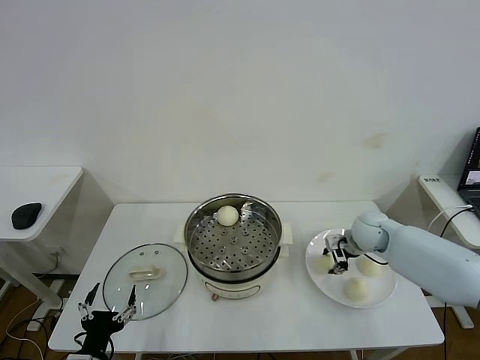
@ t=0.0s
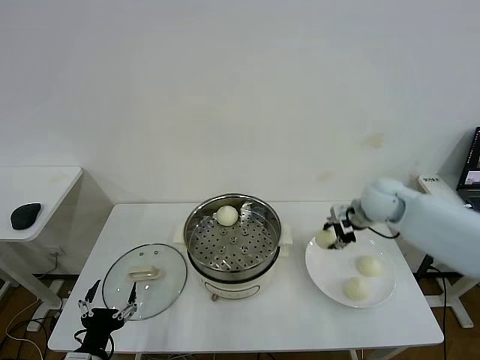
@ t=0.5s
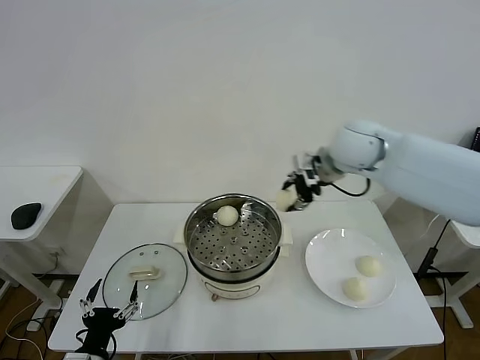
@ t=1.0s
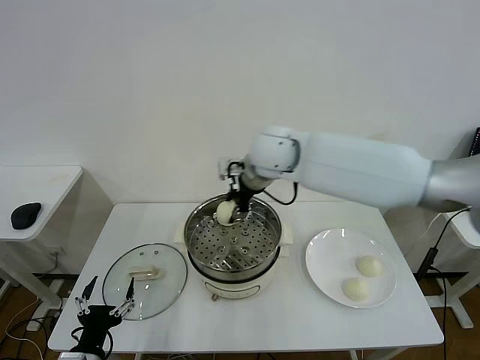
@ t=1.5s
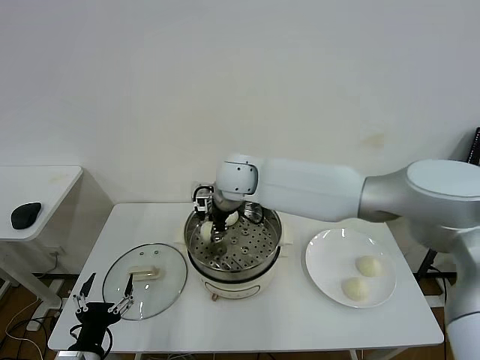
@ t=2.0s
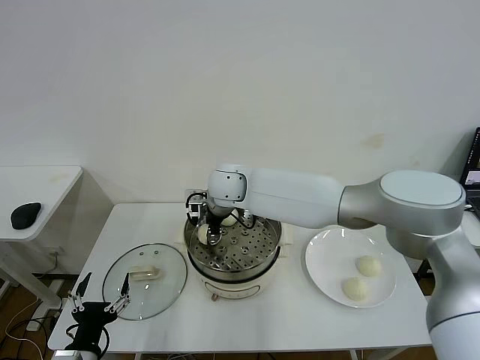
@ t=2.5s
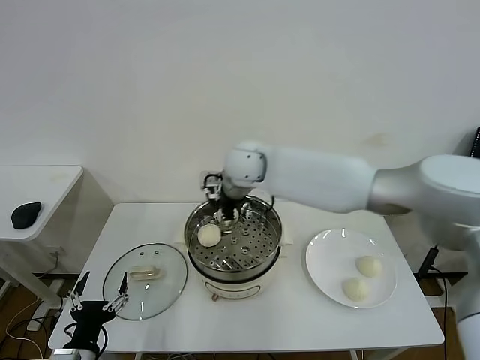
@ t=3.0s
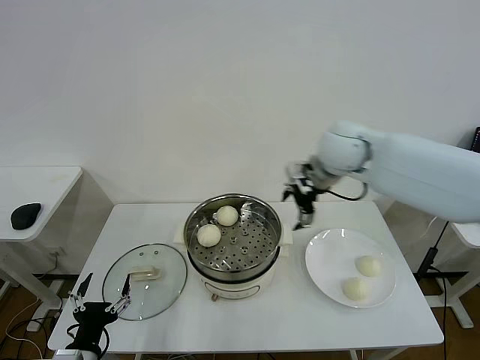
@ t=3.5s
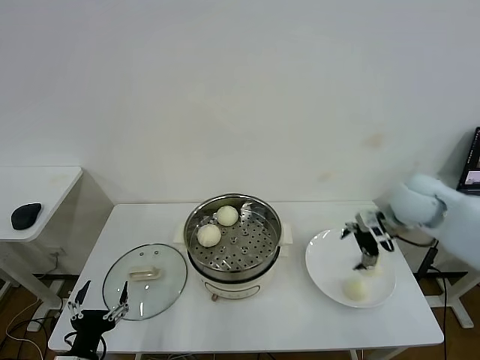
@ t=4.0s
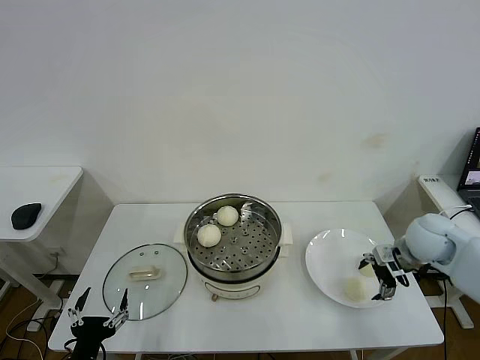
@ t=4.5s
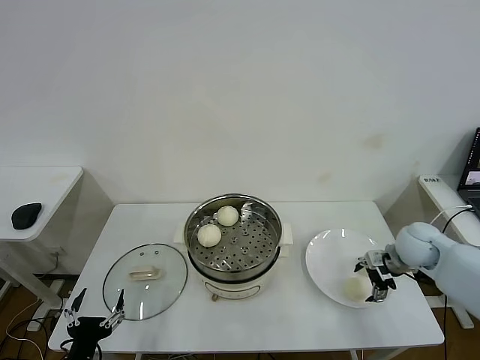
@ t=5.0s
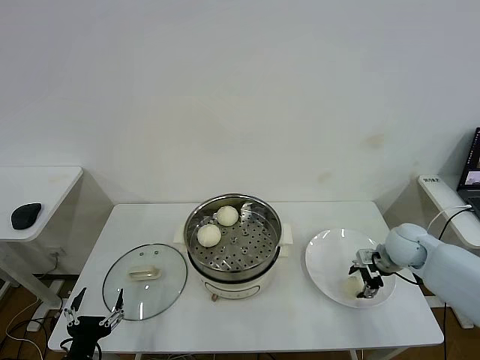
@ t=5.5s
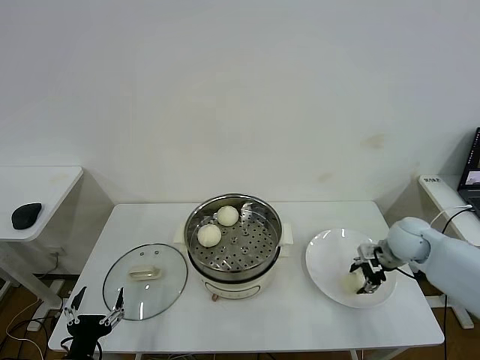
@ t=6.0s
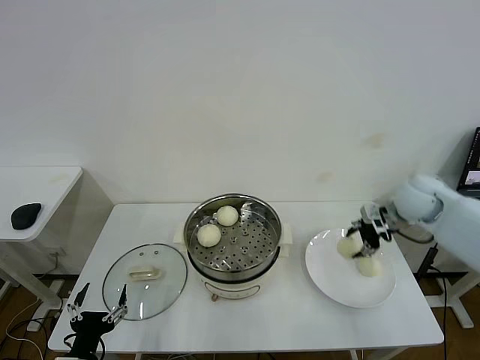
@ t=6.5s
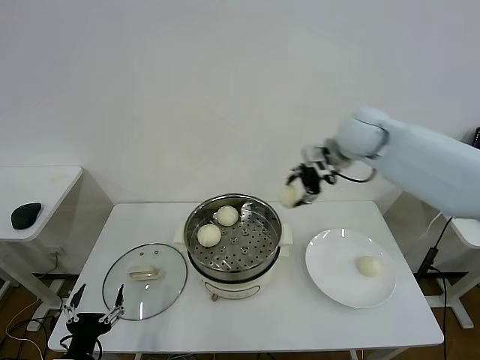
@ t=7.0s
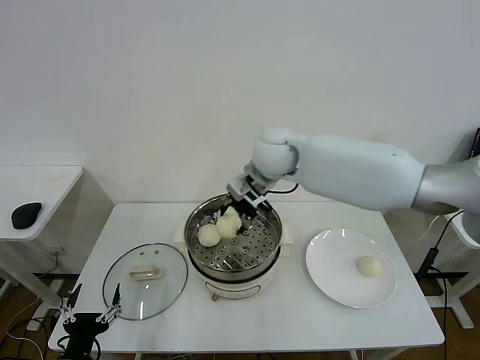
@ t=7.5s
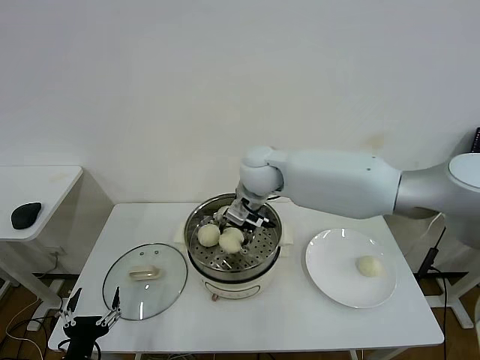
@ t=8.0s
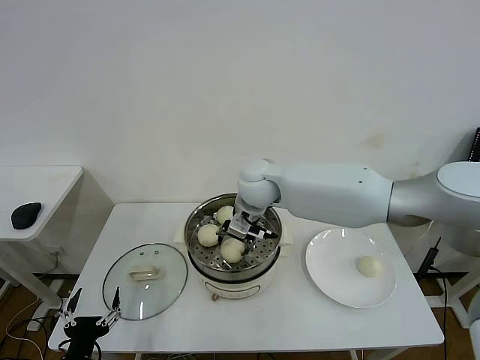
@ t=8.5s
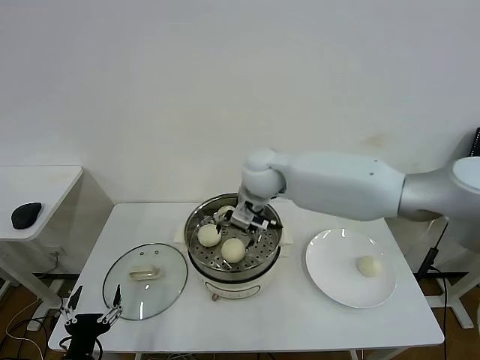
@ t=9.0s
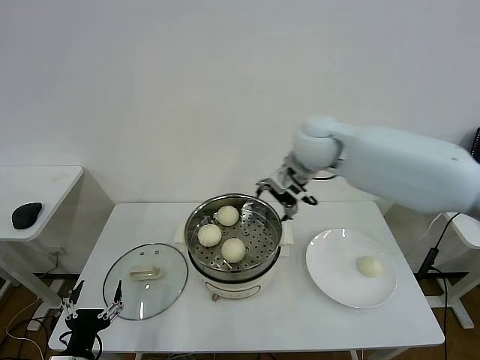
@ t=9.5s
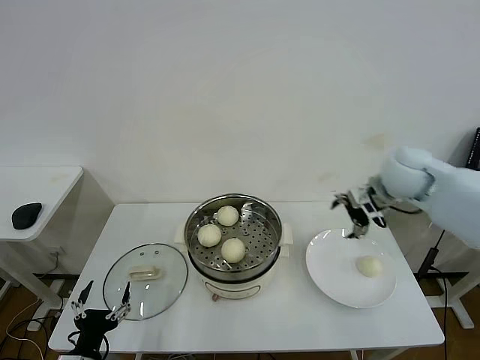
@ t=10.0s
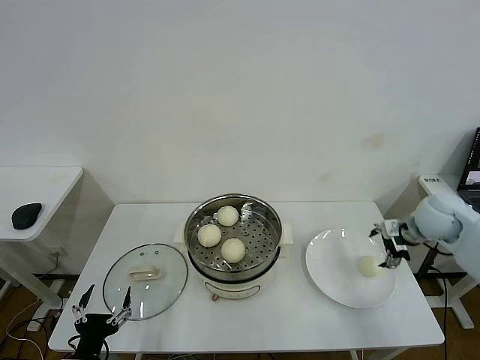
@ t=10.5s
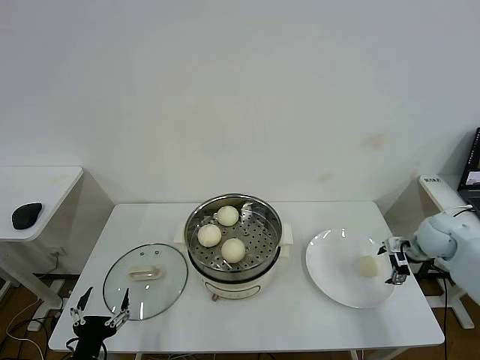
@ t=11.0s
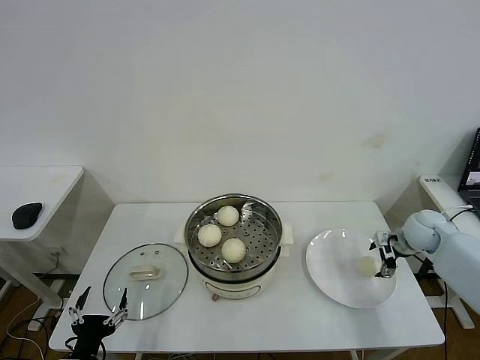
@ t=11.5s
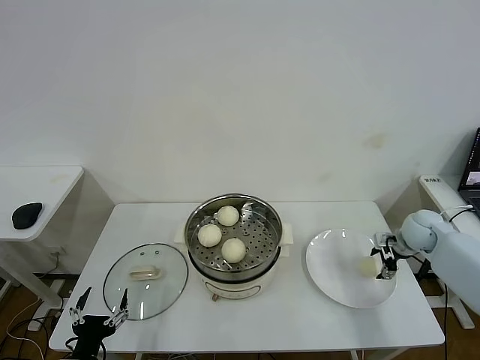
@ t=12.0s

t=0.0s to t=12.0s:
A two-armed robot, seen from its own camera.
Step, t=0.0s to t=2.5s: Place the baozi on the steamer with right gripper.
Step, t=3.0s to t=5.5s: Grasp the baozi in the plate with right gripper.
Step, t=6.0s to t=8.5s: Place the baozi on the steamer with right gripper.
t=0.0s to t=2.0s: The right gripper travels to the left and upward by some 35 cm.
t=2.0s to t=4.0s: The right gripper shifts about 35 cm to the right, and opens its fingers.
t=4.0s to t=6.0s: The right gripper is displaced downward by about 10 cm, and closes its fingers.
t=6.0s to t=8.0s: The right gripper shifts approximately 40 cm to the left and upward.
t=8.0s to t=10.0s: The right gripper goes approximately 30 cm to the right, and opens its fingers.
t=10.0s to t=12.0s: The right gripper travels downward and to the right by about 20 cm.

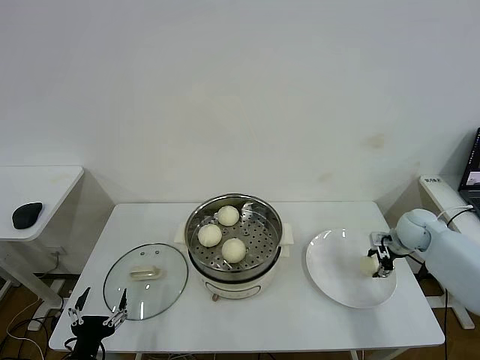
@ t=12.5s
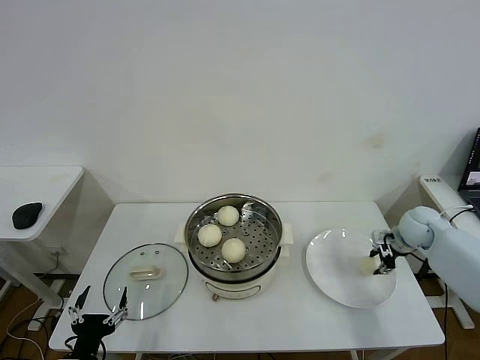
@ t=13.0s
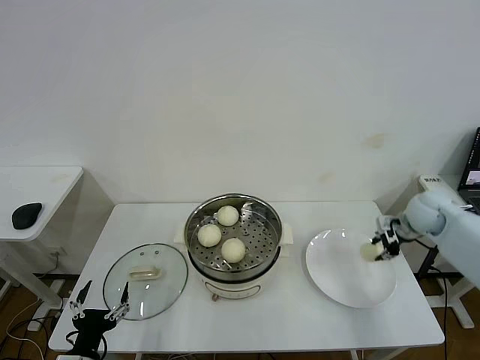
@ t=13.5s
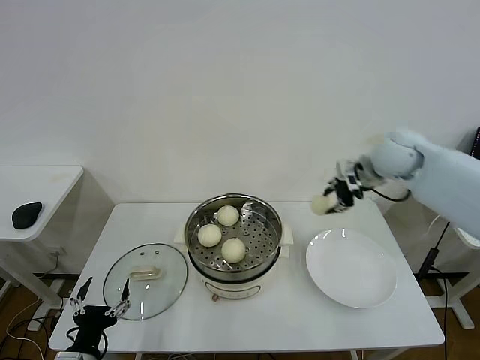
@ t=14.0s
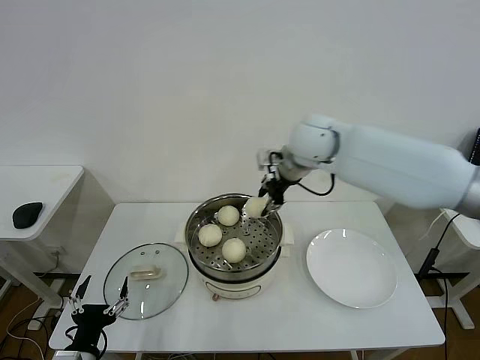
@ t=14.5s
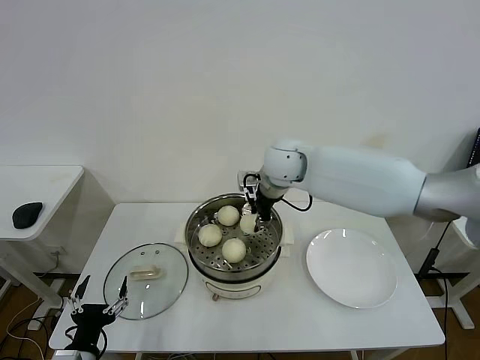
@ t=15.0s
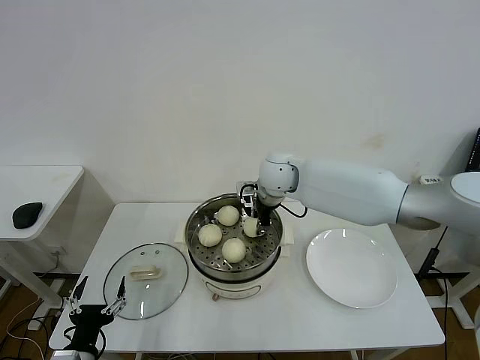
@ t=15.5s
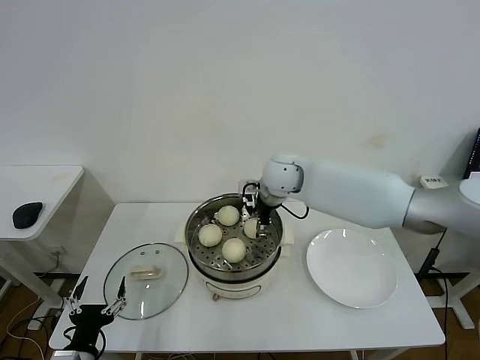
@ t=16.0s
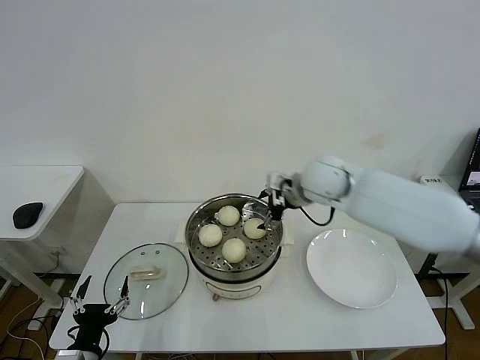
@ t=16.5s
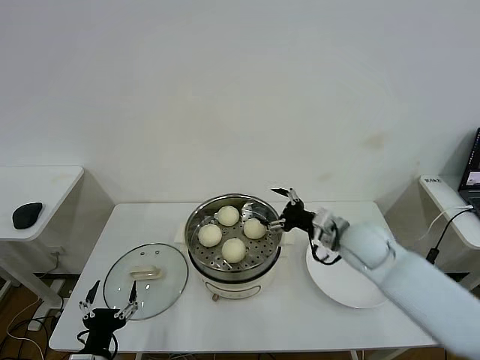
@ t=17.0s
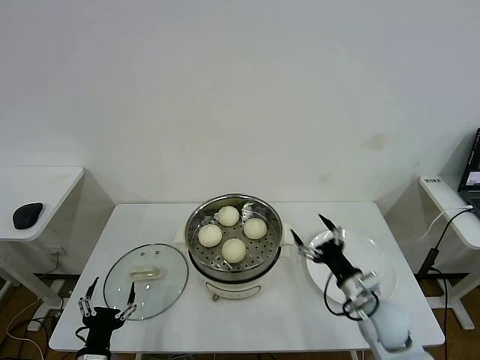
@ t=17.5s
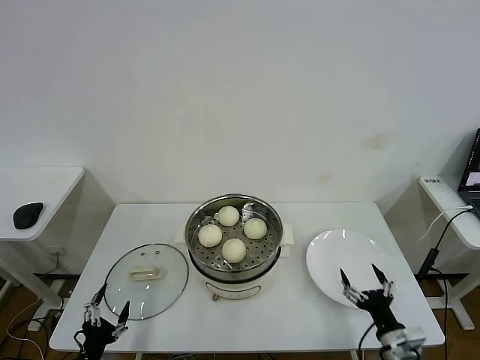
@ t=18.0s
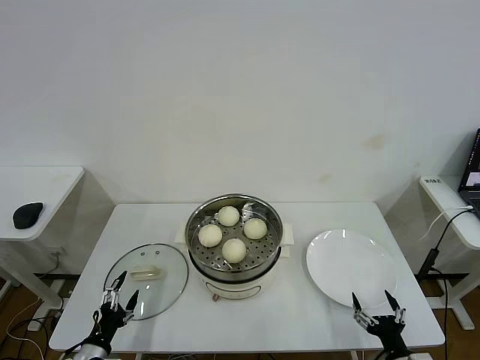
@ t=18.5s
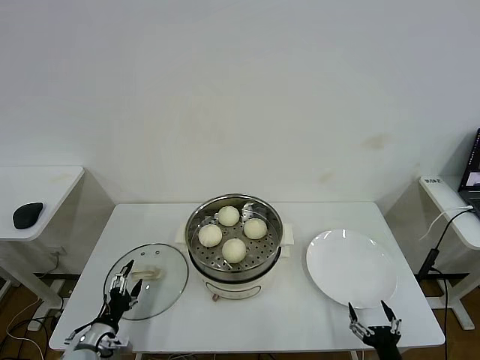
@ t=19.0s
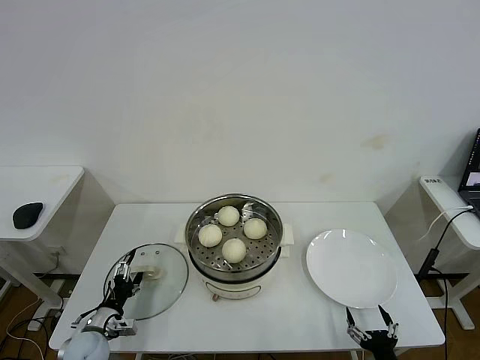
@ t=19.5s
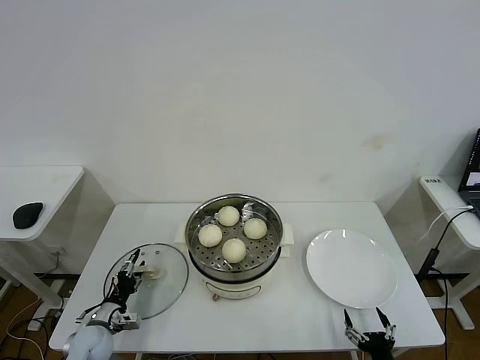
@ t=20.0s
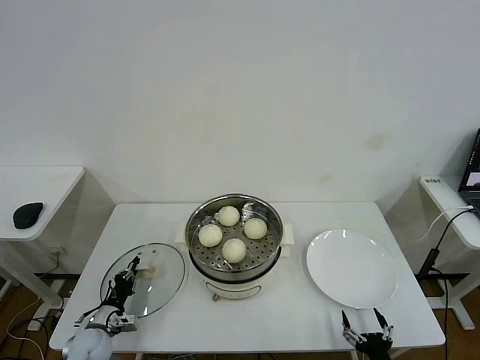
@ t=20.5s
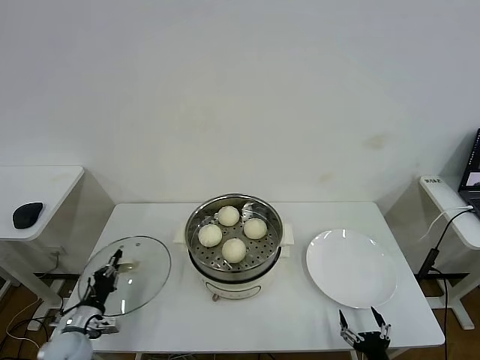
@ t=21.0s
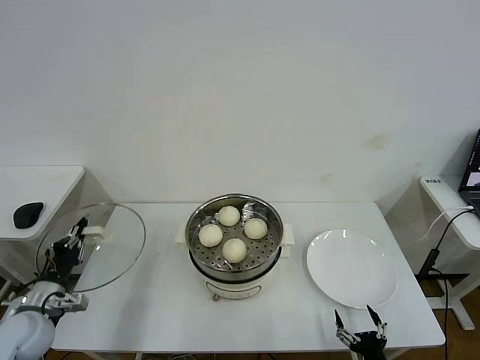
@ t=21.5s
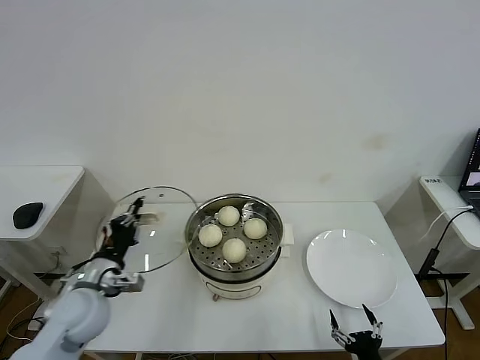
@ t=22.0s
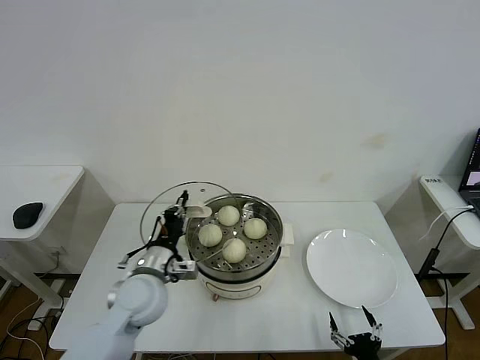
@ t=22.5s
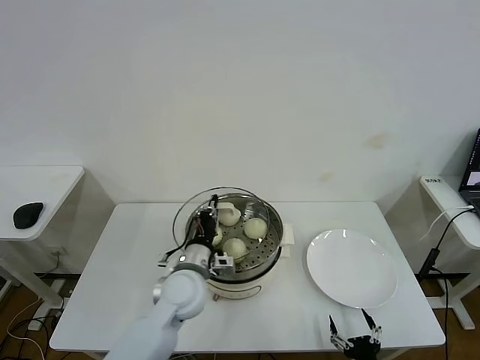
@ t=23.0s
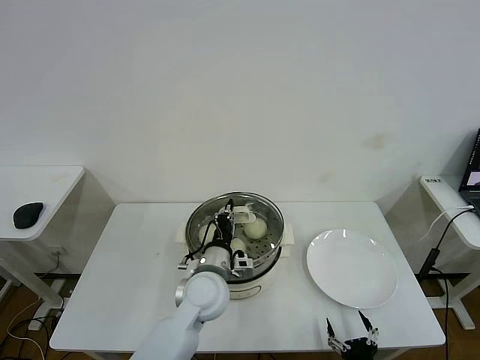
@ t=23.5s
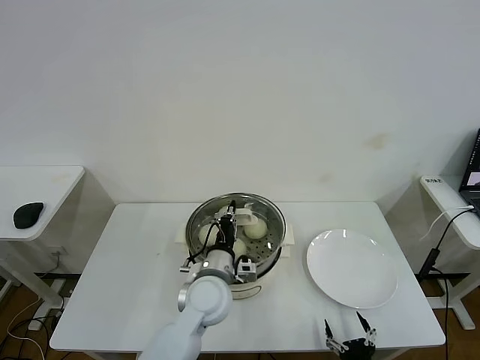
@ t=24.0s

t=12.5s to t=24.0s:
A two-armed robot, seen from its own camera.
Step, t=13.5s to t=16.0s: Place the baozi on the steamer with right gripper.
Step, t=16.5s to t=20.5s: Grasp the pot lid with left gripper.
t=12.5s to t=14.5s: The right gripper travels to the left and upward by about 40 cm, and closes its fingers.
t=14.5s to t=16.5s: The right gripper goes about 5 cm downward, and opens up.
t=16.5s to t=18.5s: The left gripper goes about 5 cm downward. The right gripper moves backward, downward and to the right, roughly 50 cm.
t=18.5s to t=20.0s: The left gripper moves forward, about 10 cm, and closes up.
t=20.0s to t=22.0s: The left gripper is displaced upward by about 20 cm, and closes up.
t=22.0s to t=24.0s: The left gripper goes about 25 cm to the right.

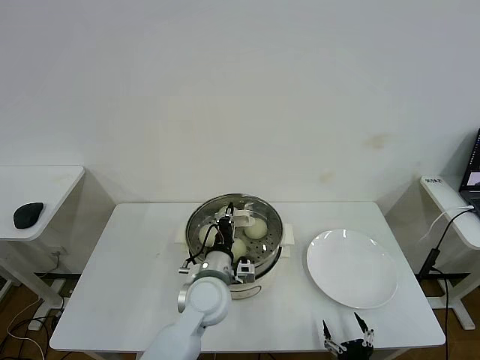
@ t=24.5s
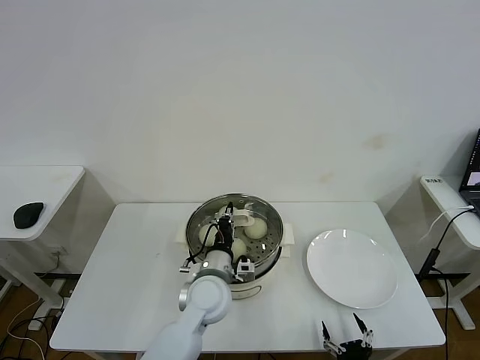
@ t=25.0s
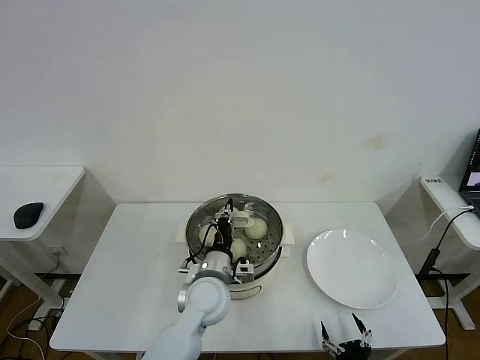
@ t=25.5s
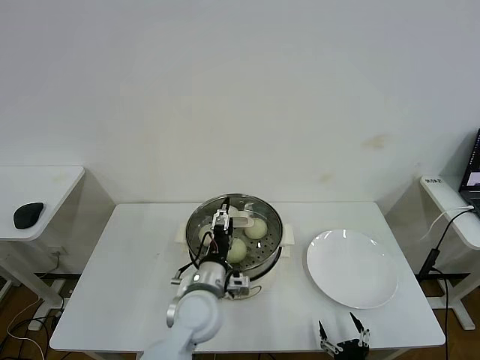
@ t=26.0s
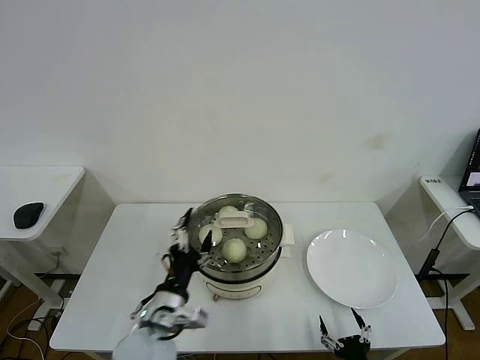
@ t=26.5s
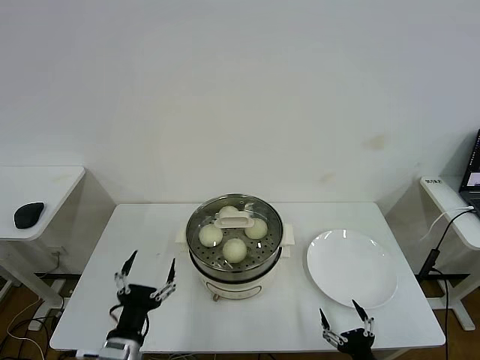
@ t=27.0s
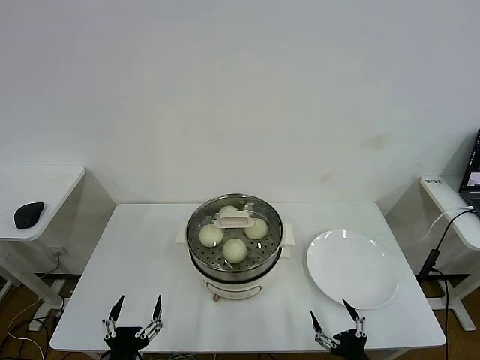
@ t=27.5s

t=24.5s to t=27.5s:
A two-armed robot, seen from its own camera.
t=24.5s to t=26.0s: The left gripper opens up.
t=26.0s to t=27.5s: The left gripper is displaced backward and to the left by approximately 25 cm.
